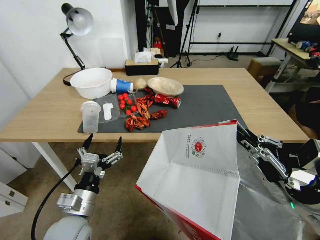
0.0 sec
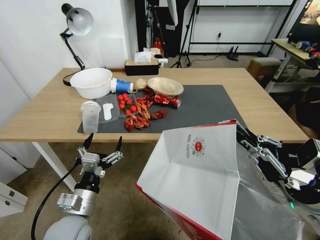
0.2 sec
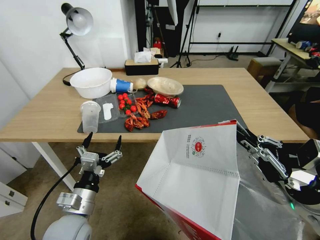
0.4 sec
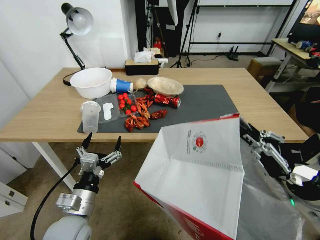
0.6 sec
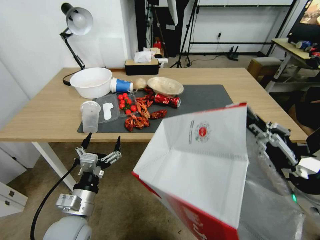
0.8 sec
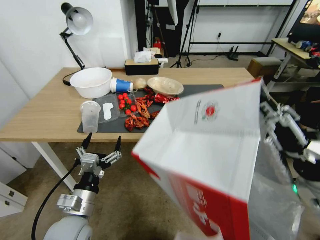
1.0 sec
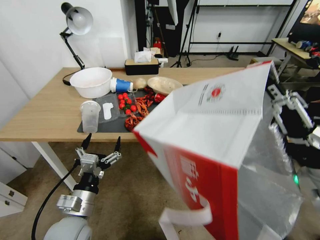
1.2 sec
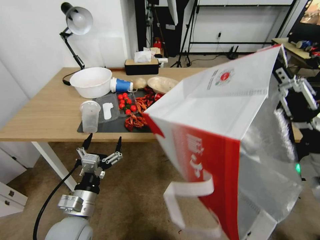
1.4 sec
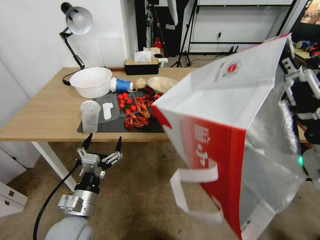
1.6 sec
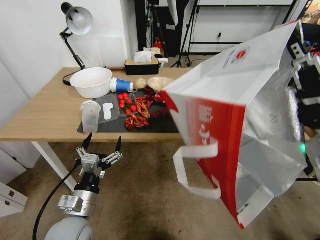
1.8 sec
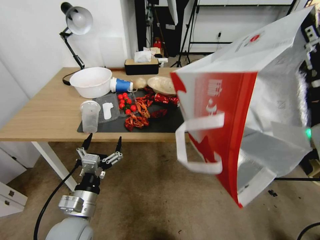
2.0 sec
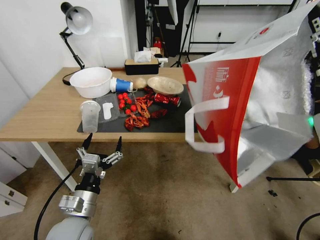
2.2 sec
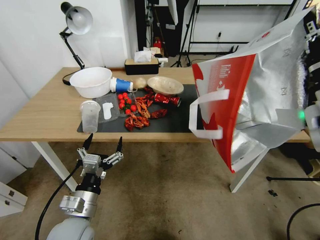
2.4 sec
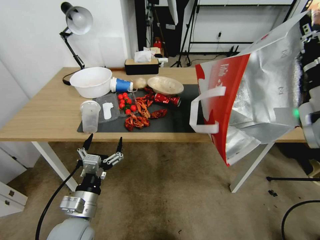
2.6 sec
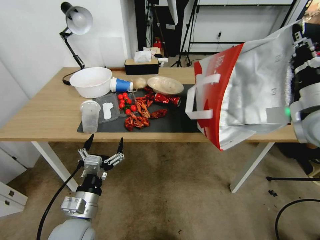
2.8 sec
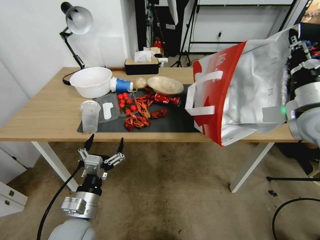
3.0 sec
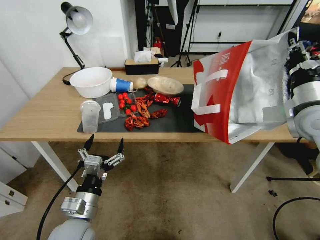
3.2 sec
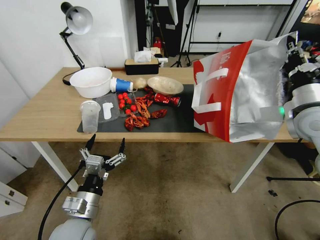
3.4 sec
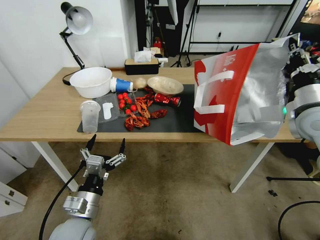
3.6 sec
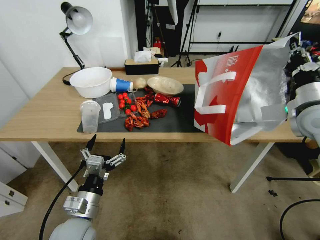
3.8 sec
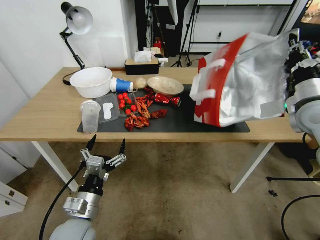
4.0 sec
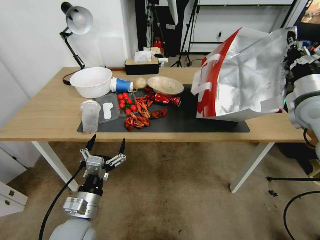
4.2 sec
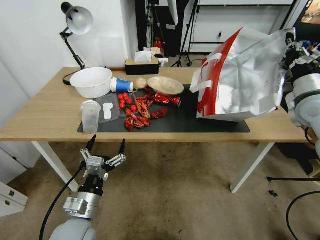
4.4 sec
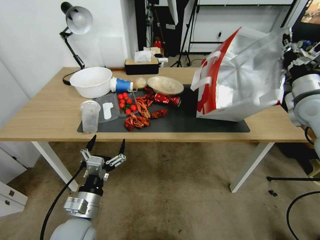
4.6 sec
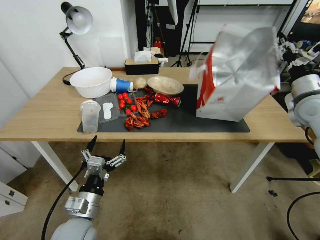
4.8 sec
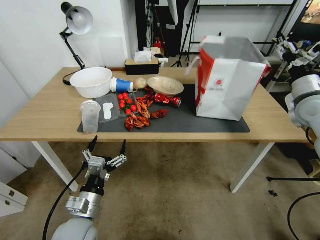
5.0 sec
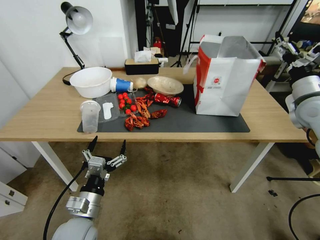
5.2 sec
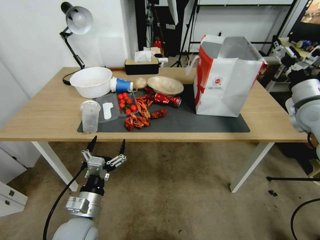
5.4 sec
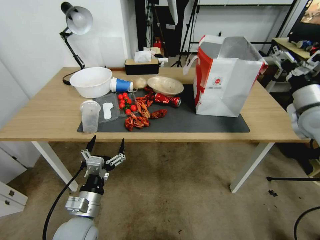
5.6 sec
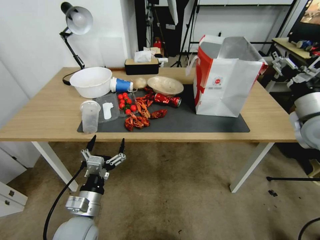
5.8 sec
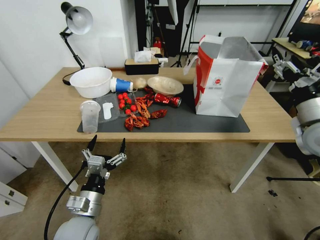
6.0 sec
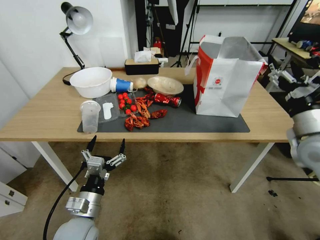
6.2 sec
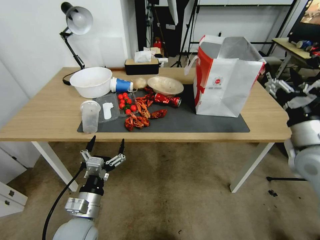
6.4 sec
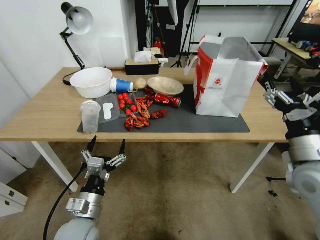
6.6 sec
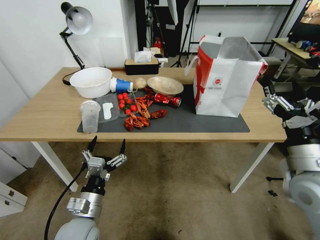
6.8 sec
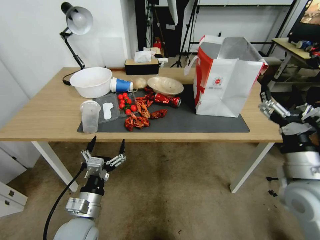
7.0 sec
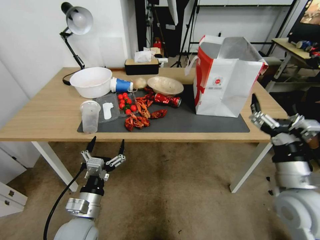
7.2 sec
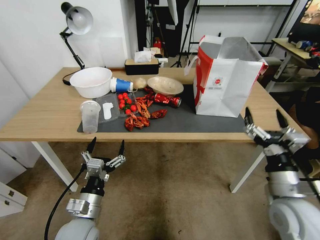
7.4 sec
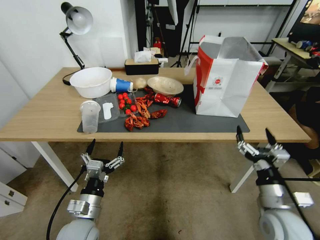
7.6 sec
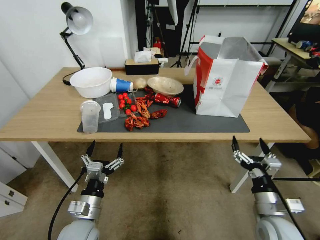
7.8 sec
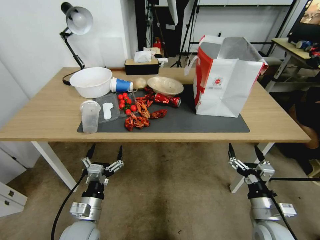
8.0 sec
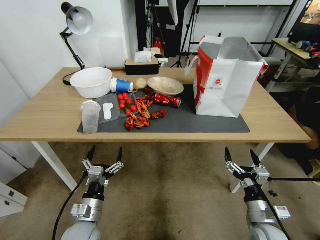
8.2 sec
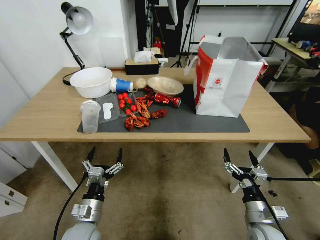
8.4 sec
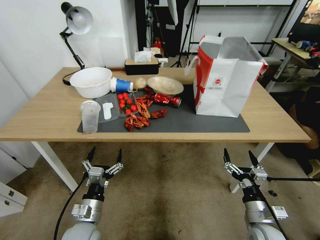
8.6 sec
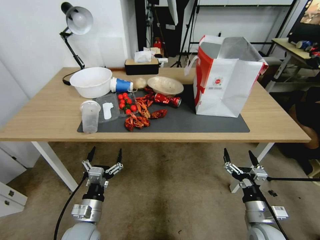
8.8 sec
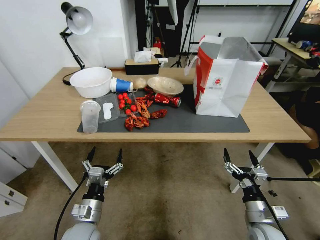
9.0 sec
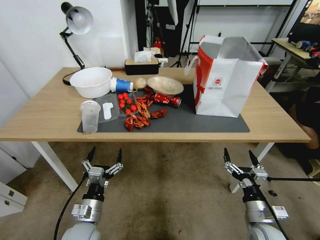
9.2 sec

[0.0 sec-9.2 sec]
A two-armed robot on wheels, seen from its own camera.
Task of the whole recording: Pick up the food delivery bag from the floor and place it on the table.
0.0 sec to 1.6 sec: The right gripper moves upward, approximately 10 cm.
1.6 sec to 3.0 sec: The right gripper moves forward, roughly 15 cm.
3.0 sec to 4.6 sec: The right gripper goes about 5 cm forward.
4.6 sec to 6.2 sec: The right gripper heads backward, covering about 10 cm, and opens.
6.2 sec to 7.6 sec: The right gripper moves downward, backward and to the left, about 20 cm.
7.6 sec to 9.2 sec: The right gripper is displaced downward by about 10 cm.

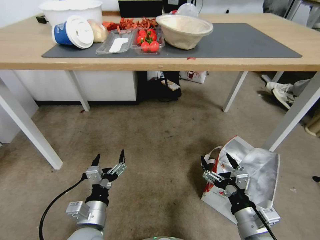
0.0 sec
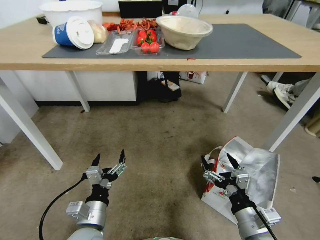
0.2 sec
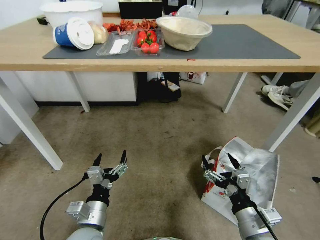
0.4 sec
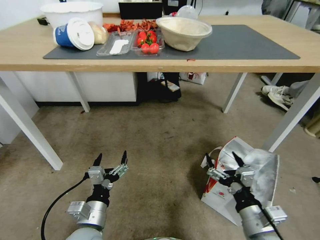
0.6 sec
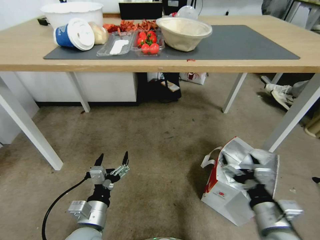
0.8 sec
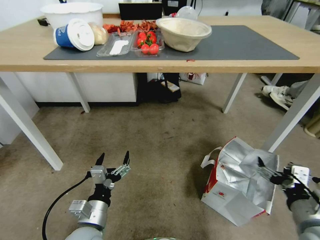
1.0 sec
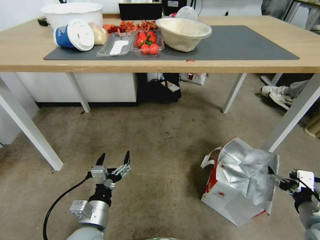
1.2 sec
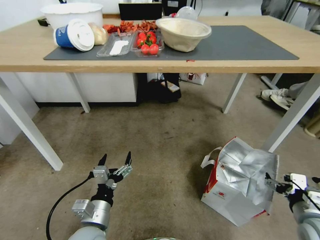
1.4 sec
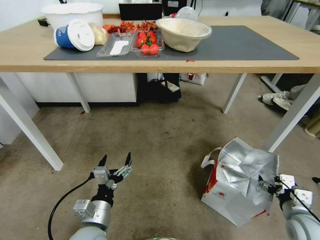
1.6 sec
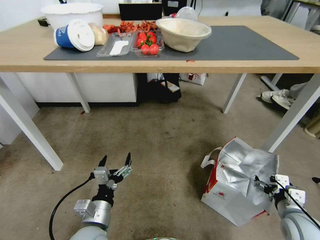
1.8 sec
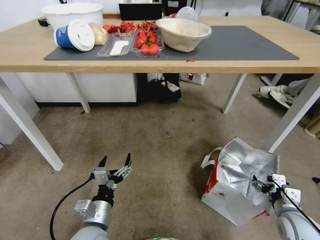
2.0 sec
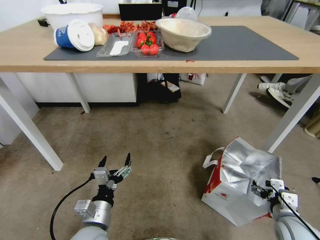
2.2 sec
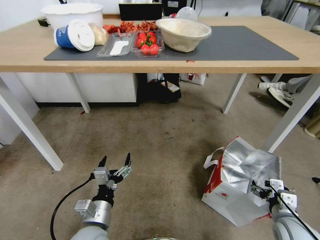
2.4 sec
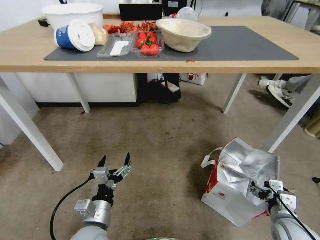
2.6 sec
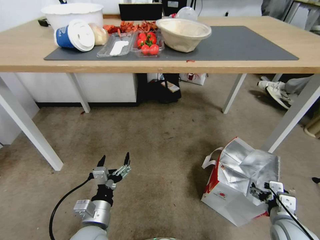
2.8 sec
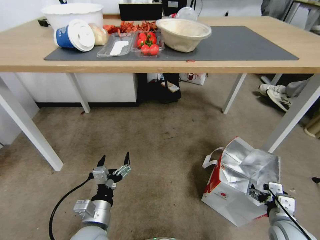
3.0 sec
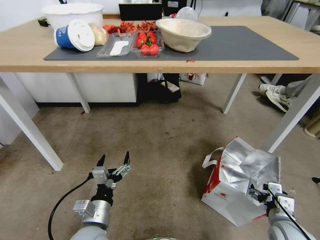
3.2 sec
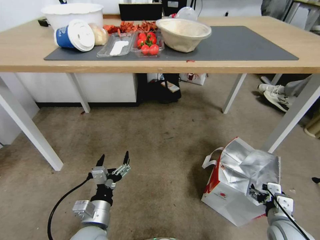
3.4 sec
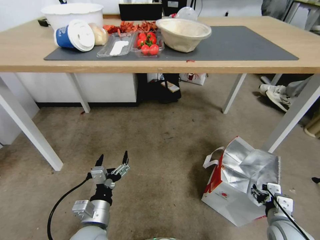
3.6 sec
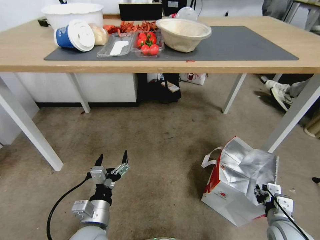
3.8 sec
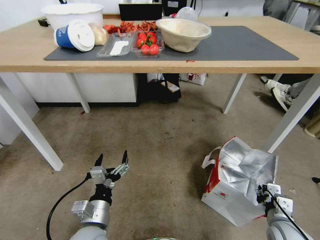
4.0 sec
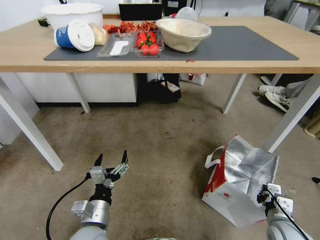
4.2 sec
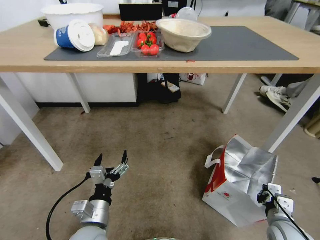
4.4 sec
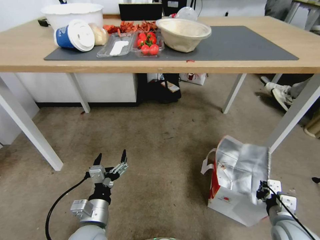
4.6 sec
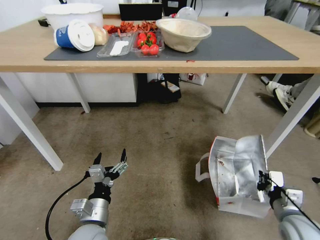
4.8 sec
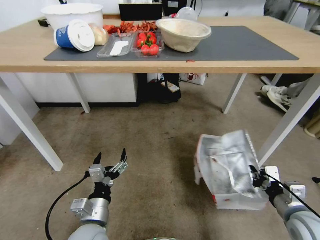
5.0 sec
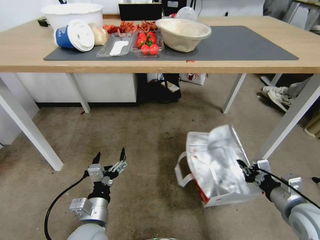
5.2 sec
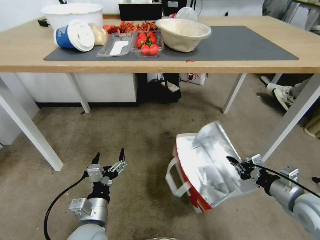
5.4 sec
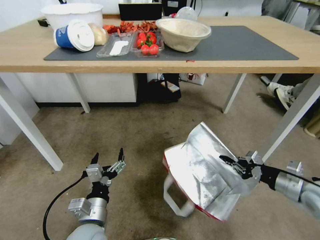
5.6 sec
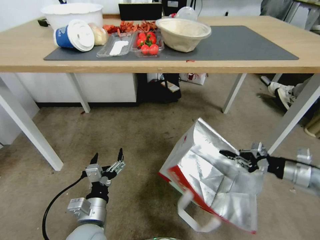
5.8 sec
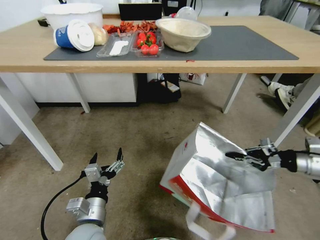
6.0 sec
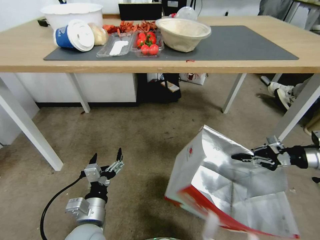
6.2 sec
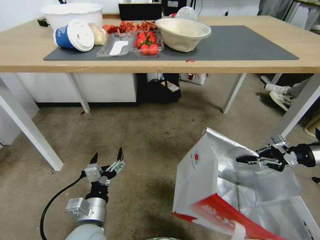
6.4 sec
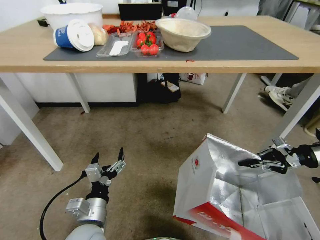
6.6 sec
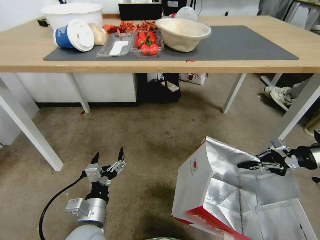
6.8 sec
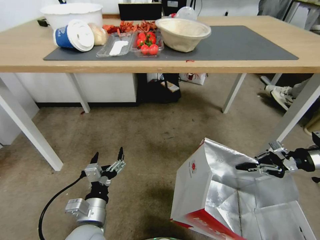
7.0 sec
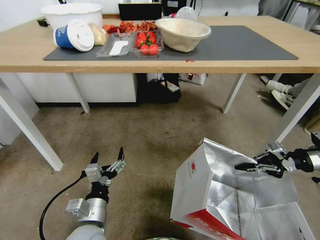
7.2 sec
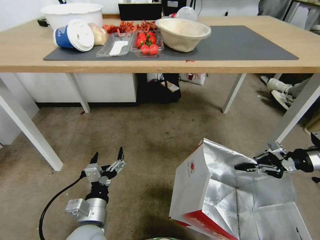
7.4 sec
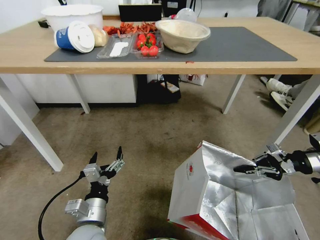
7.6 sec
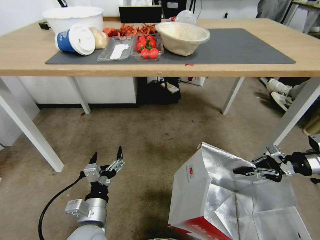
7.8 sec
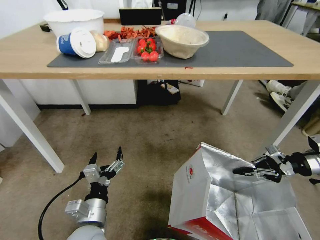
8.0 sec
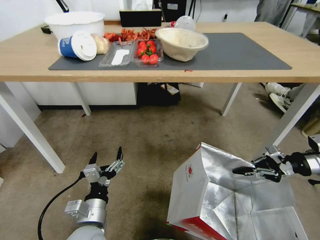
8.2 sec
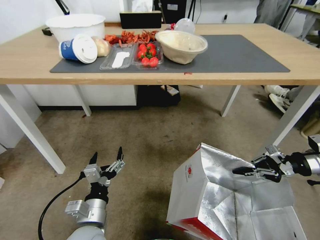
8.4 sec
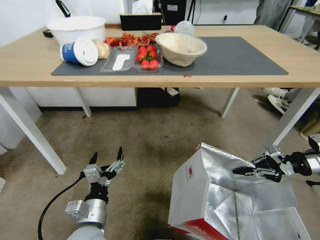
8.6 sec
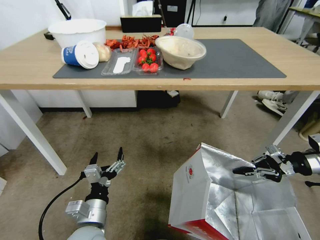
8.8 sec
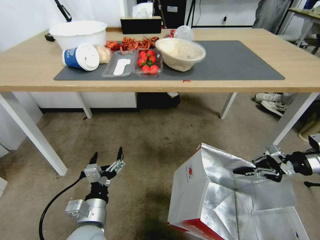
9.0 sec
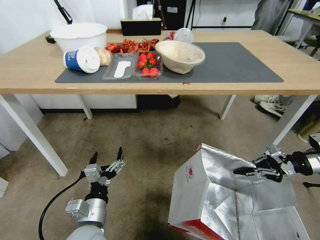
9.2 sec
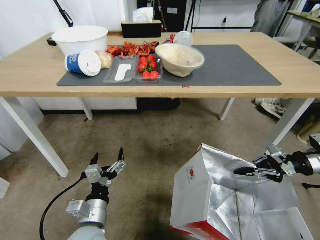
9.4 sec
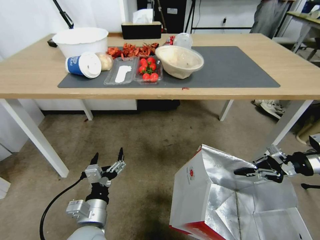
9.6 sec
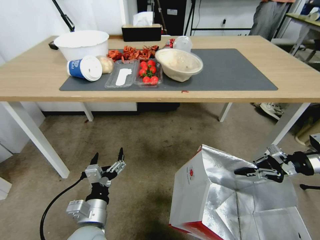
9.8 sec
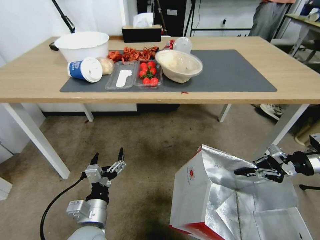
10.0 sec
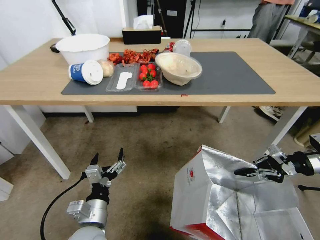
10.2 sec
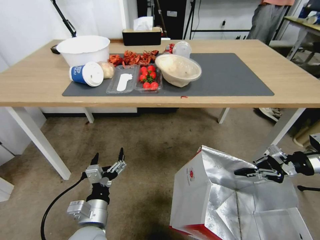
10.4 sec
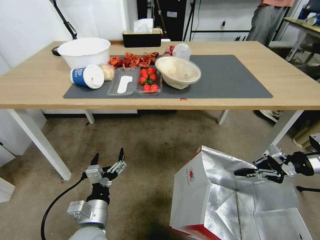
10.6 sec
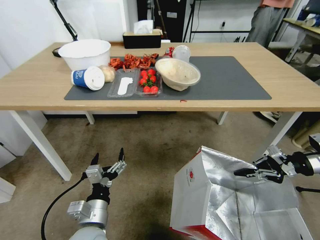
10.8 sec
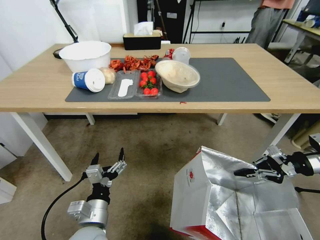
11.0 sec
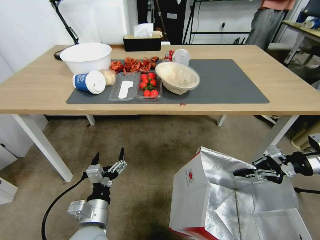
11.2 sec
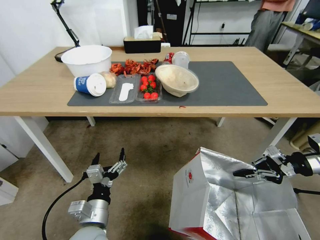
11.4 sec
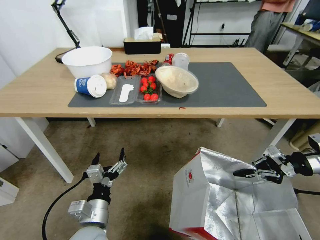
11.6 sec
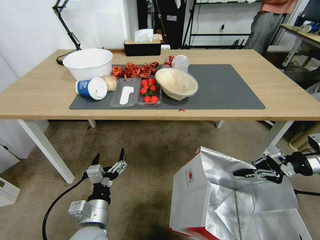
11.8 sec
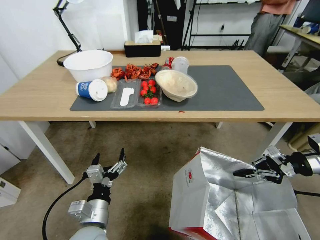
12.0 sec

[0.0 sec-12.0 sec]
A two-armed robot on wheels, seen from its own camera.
Task of the whole recording: Pick up the food delivery bag from the floor and place it on the table.
0.0 sec to 1.6 sec: The right gripper goes approximately 15 cm to the right.
1.6 sec to 3.0 sec: The right gripper ends up roughly 5 cm from where it was.
3.0 sec to 4.4 sec: The right gripper closes its fingers.
4.4 sec to 6.0 sec: The right gripper goes about 25 cm upward, to the right and forward.

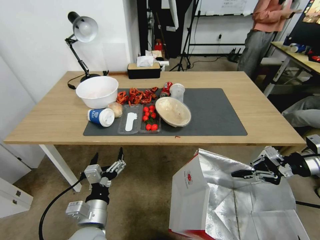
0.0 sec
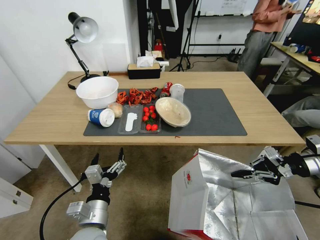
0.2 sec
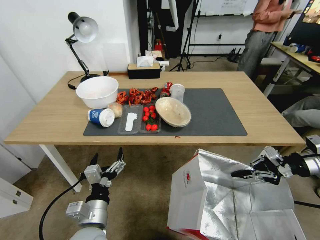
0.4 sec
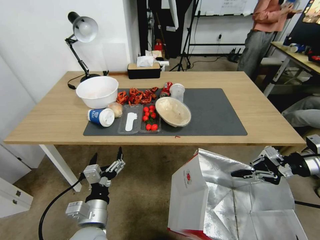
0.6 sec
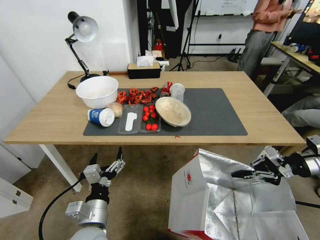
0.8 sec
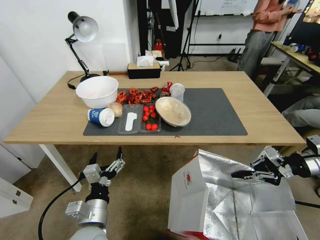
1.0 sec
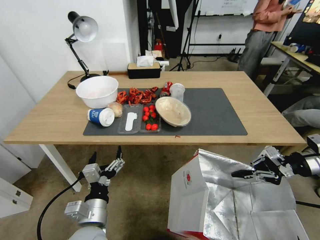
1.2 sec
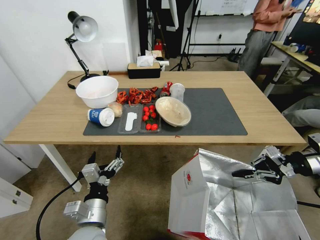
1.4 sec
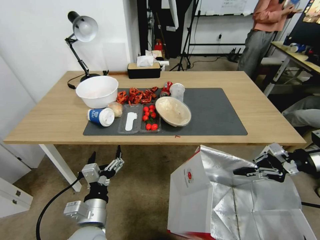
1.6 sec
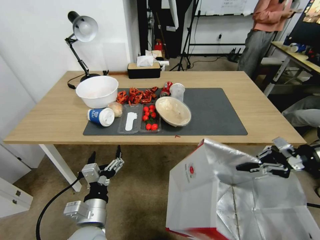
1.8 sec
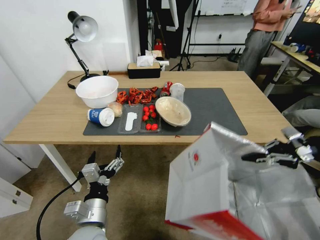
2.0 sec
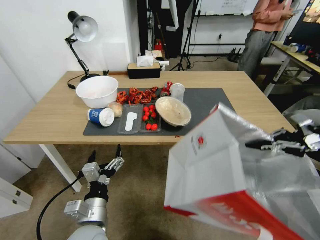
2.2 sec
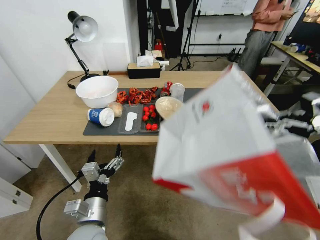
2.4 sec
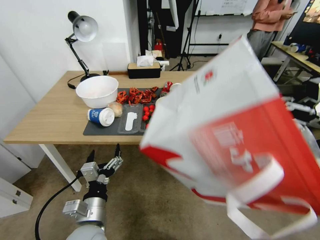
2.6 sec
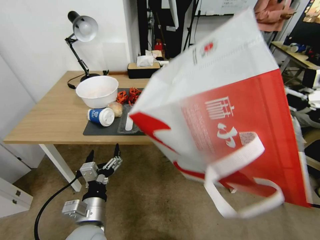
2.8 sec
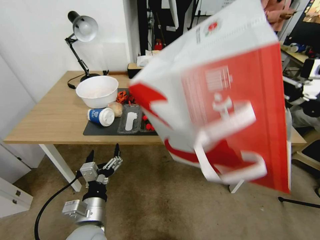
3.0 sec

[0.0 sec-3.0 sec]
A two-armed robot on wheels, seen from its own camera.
Task of the whole recording: Pick up the food delivery bag from the floor and place it on the table.
0.0 sec to 1.6 sec: The grippers move only a little.
1.6 sec to 3.0 sec: The right gripper goes about 10 cm upward and to the left.
